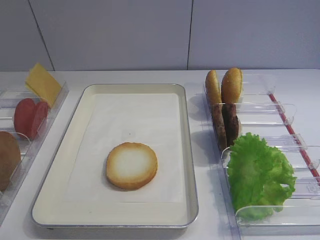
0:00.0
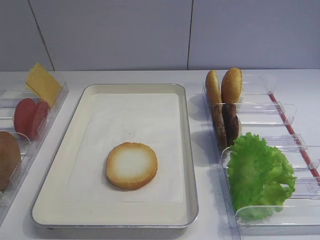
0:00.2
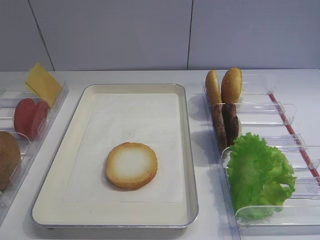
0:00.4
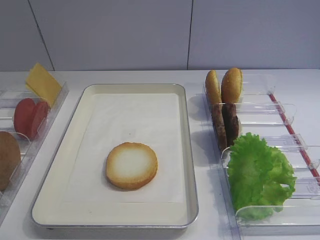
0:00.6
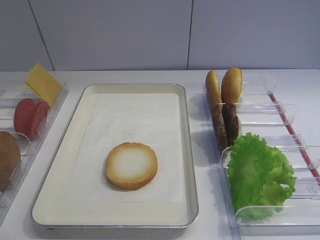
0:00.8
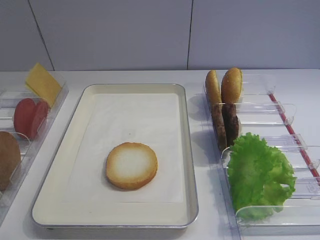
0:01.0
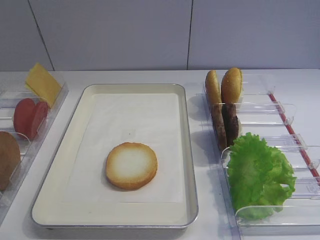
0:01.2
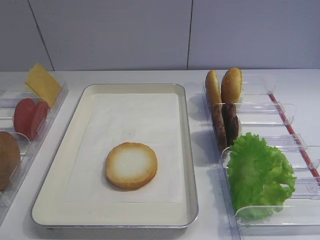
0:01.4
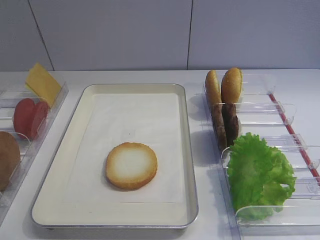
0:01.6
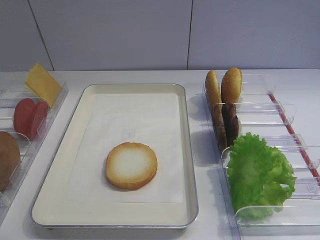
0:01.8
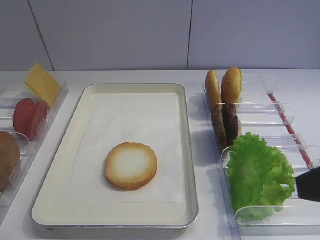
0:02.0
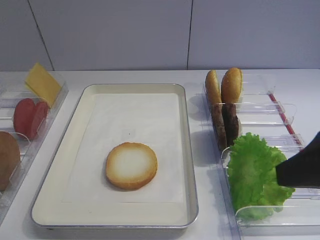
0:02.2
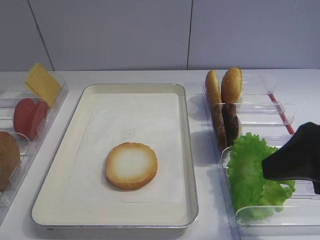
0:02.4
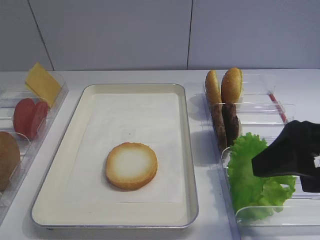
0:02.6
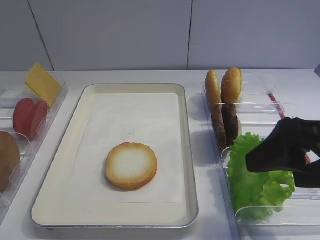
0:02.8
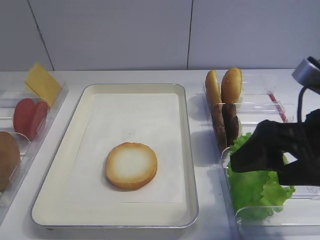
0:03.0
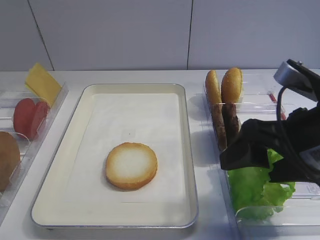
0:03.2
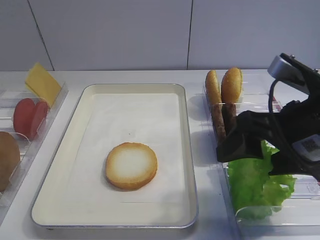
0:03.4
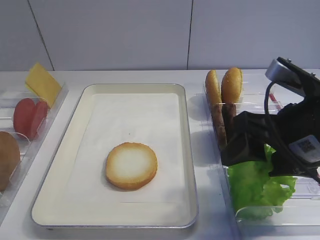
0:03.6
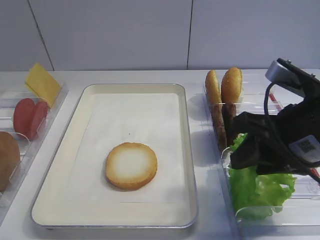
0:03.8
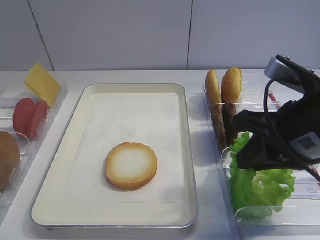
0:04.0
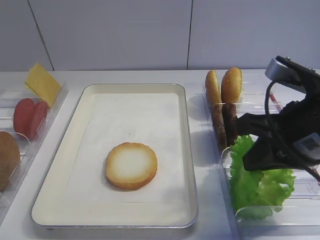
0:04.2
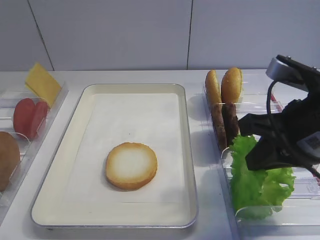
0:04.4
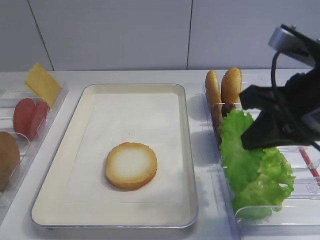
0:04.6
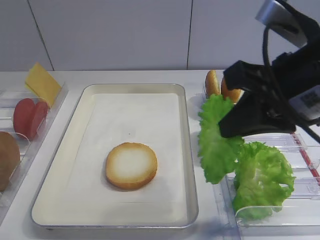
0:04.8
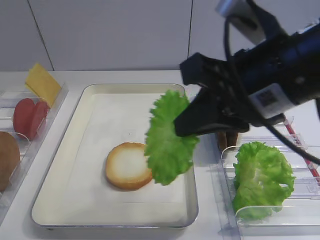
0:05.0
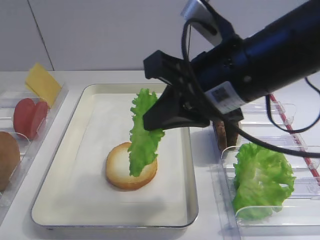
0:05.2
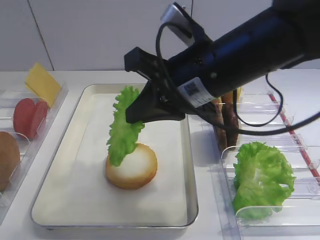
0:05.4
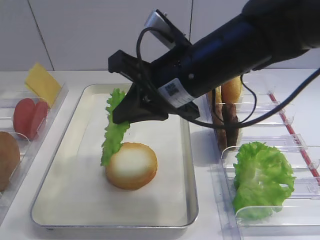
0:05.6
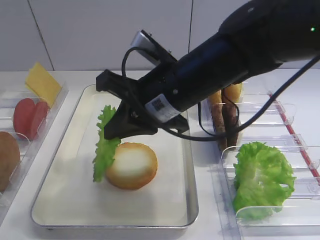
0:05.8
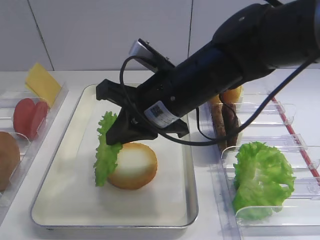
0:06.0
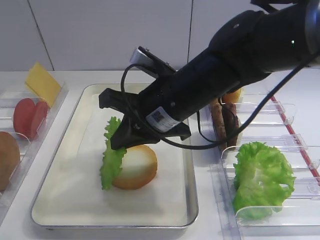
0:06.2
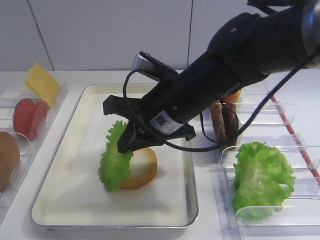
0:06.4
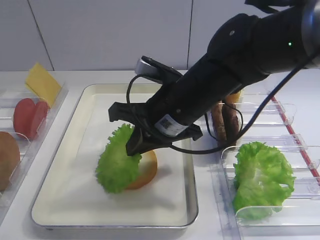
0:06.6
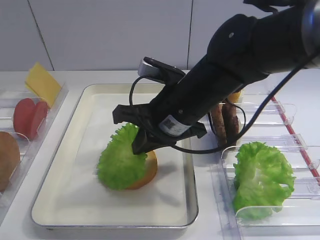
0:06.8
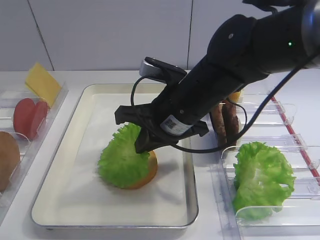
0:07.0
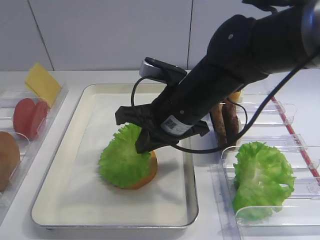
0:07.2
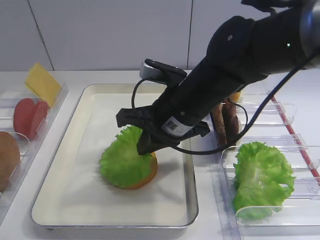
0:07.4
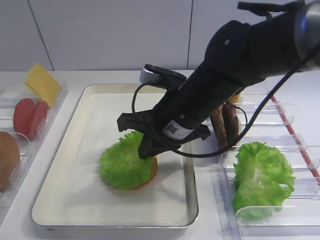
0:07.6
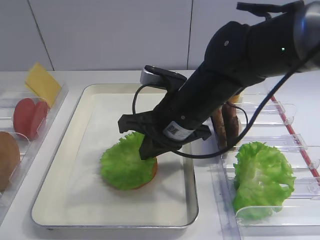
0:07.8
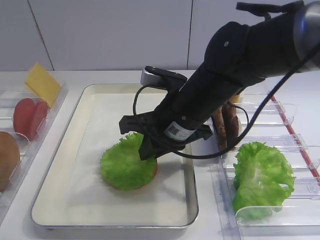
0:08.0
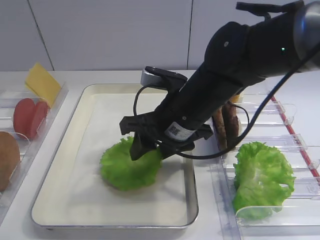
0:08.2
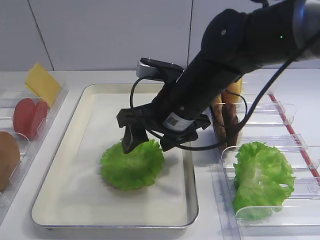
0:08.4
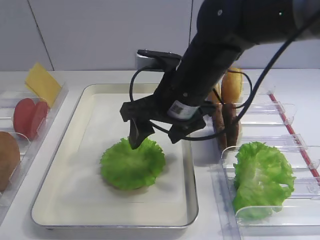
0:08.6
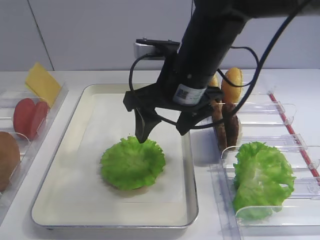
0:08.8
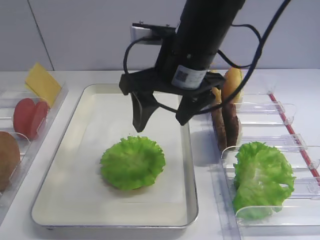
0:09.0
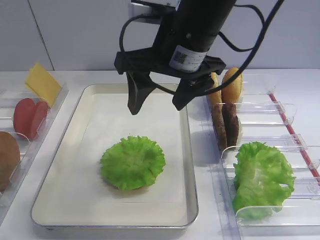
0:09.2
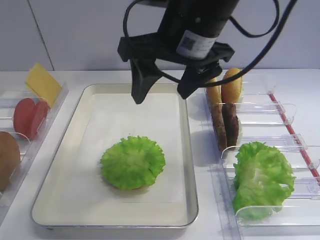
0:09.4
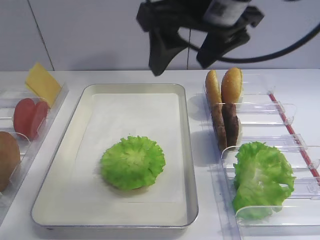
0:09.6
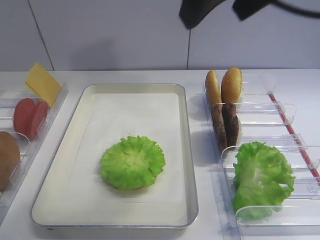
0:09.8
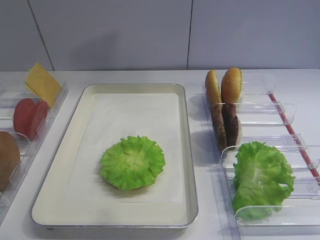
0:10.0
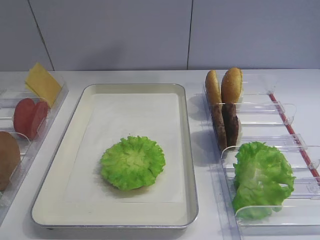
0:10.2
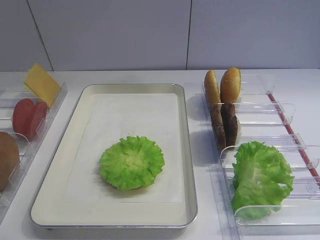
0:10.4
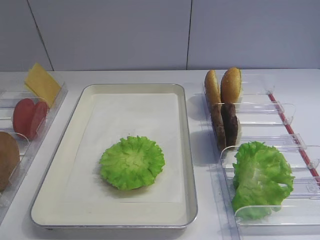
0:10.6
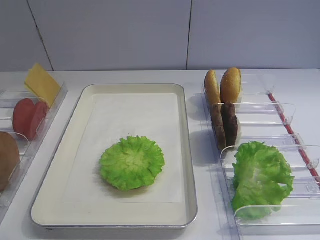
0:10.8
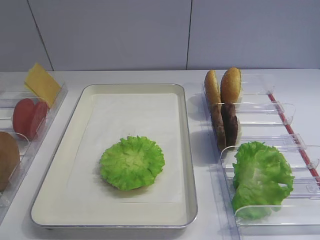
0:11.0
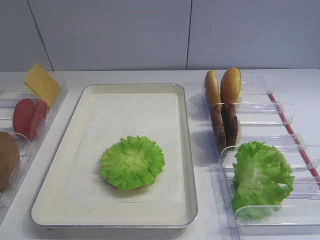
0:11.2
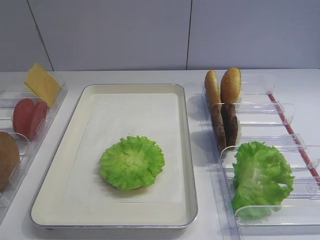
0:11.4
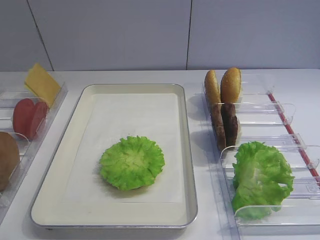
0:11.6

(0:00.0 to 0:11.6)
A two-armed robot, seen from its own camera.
Step, 0:00.0 - 0:04.6: Pick up the lettuce leaf with the right gripper.
Step, 0:04.8 - 0:09.0: Place the lettuce leaf on the bread slice with the right gripper.
0:01.4 - 0:02.8: The right gripper moves forward, about 15 cm, and opens up.
0:02.8 - 0:04.4: The right gripper closes.
0:04.4 - 0:05.8: The right gripper shifts some 15 cm to the left and forward.
0:07.2 - 0:08.8: The right gripper shifts by about 5 cm, and opens up.
0:08.8 - 0:10.2: The right gripper moves upward, backward and to the right, some 35 cm.
0:10.2 - 0:11.6: The right gripper moves downward and backward, about 25 cm.

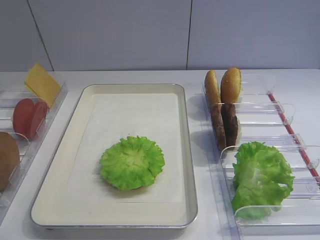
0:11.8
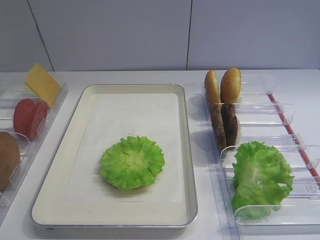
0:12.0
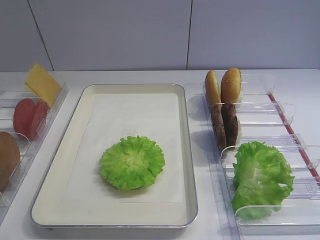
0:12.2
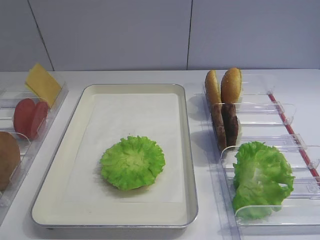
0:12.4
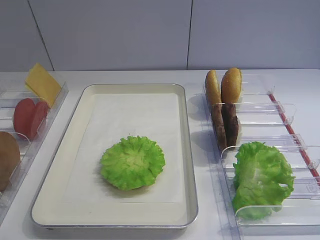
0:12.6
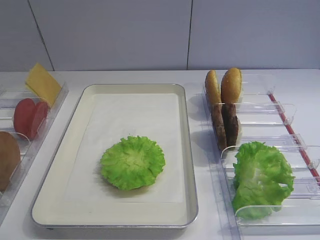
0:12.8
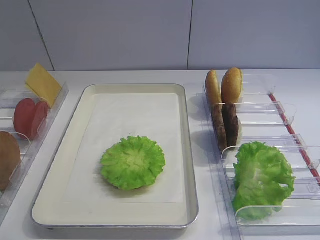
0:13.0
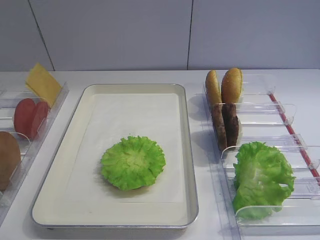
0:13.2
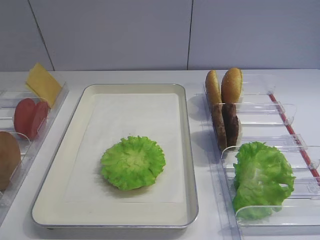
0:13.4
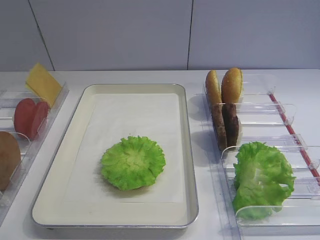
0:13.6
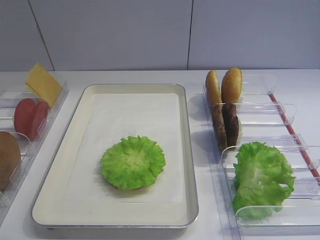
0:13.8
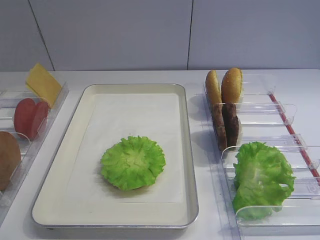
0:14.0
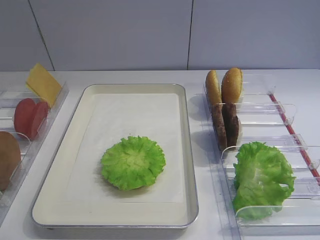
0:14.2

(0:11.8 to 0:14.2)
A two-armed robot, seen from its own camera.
0:11.8 - 0:14.2: The two grippers keep their place.

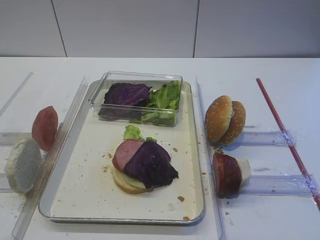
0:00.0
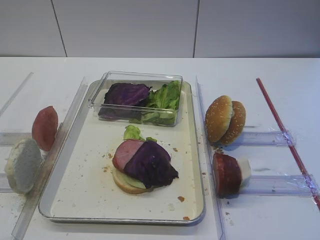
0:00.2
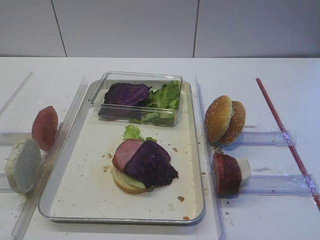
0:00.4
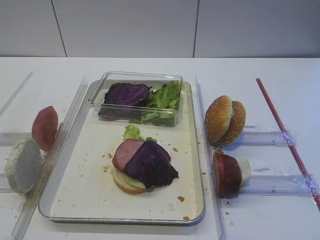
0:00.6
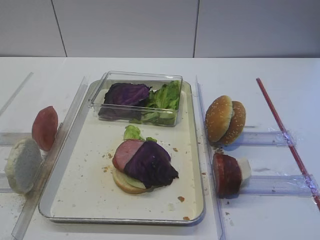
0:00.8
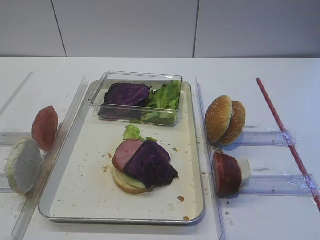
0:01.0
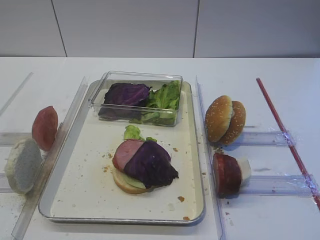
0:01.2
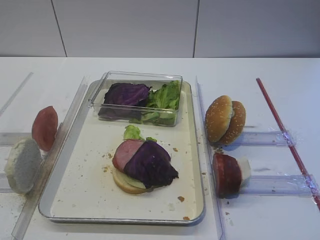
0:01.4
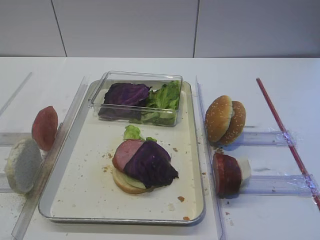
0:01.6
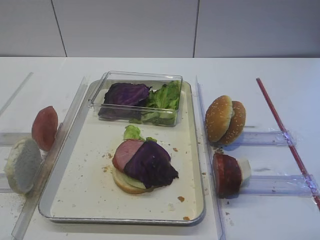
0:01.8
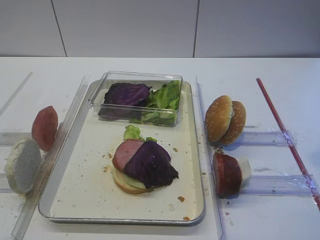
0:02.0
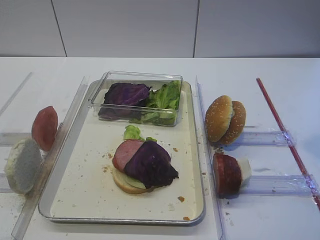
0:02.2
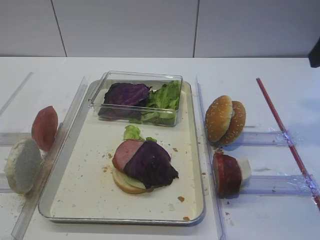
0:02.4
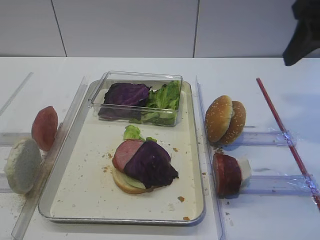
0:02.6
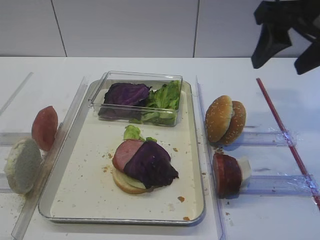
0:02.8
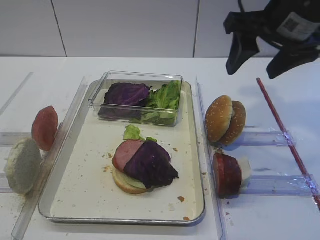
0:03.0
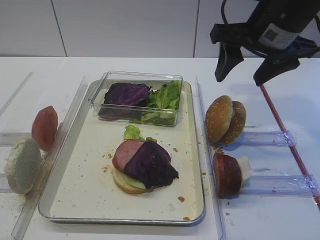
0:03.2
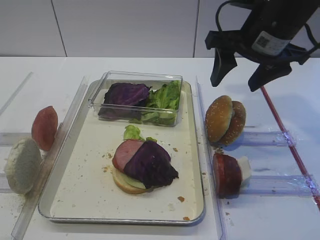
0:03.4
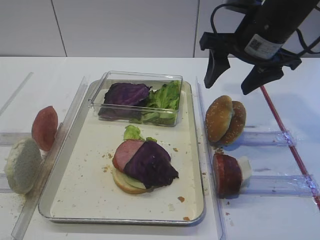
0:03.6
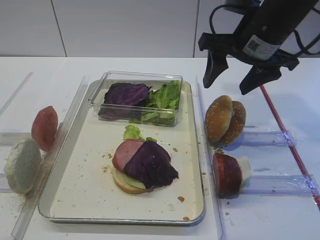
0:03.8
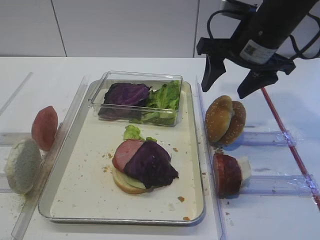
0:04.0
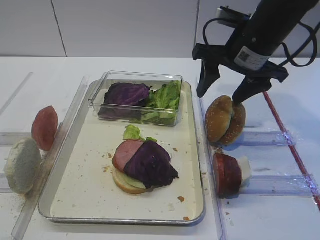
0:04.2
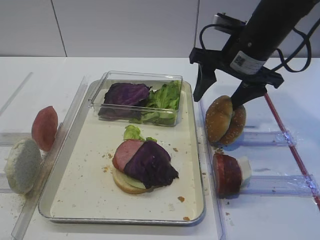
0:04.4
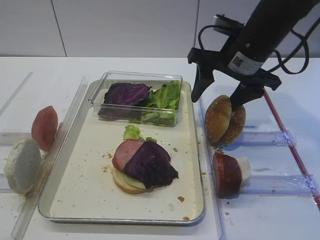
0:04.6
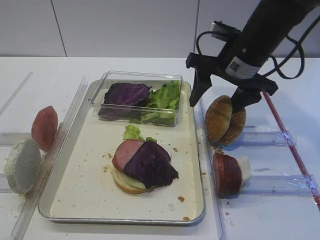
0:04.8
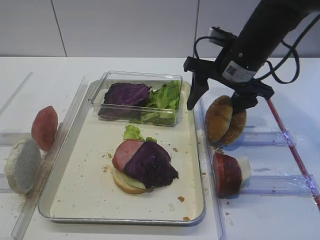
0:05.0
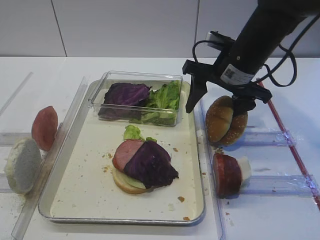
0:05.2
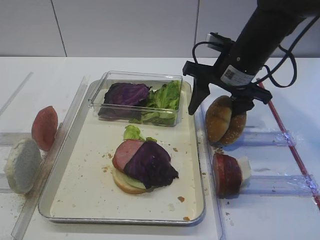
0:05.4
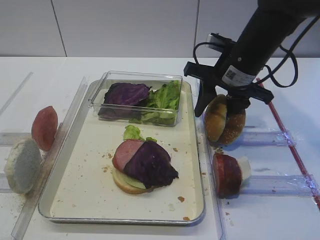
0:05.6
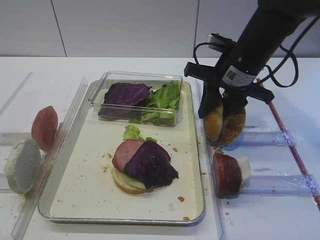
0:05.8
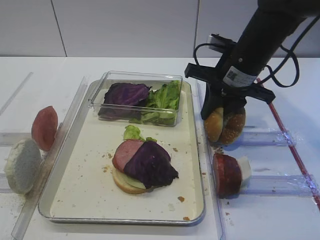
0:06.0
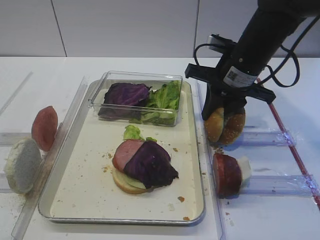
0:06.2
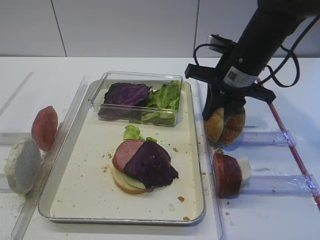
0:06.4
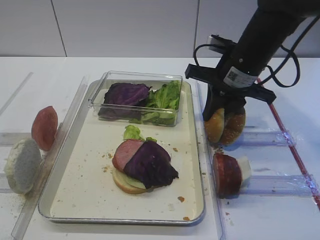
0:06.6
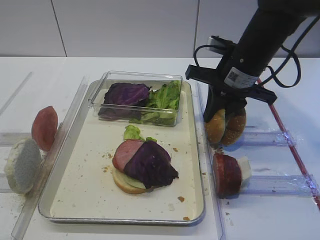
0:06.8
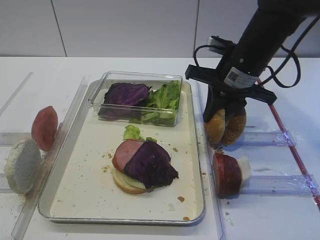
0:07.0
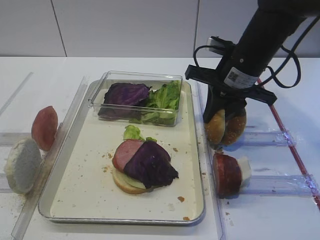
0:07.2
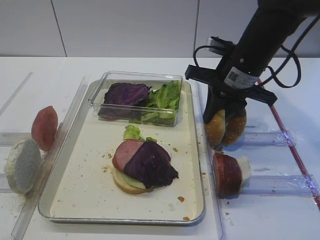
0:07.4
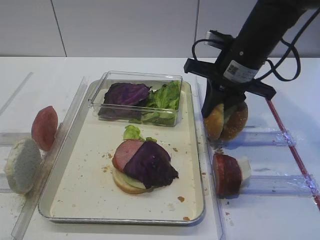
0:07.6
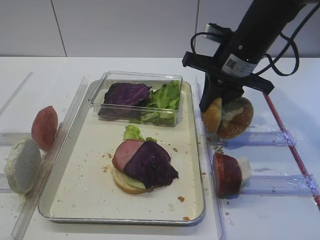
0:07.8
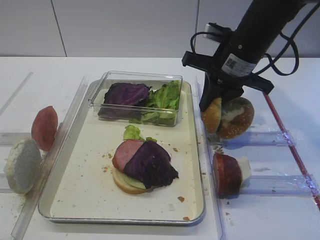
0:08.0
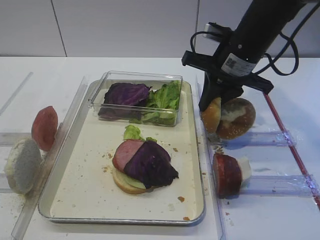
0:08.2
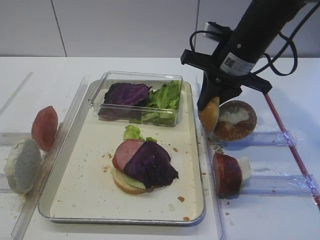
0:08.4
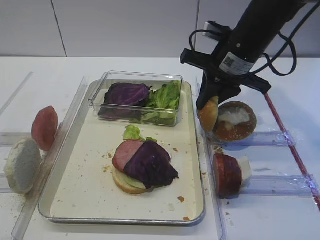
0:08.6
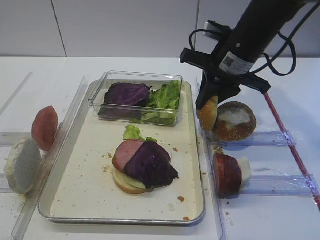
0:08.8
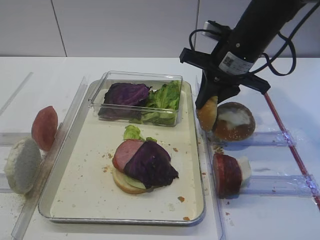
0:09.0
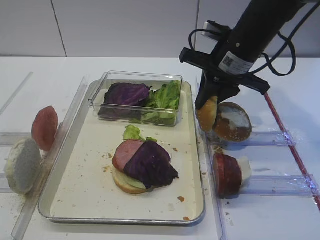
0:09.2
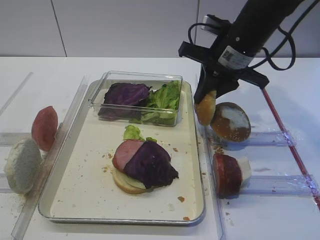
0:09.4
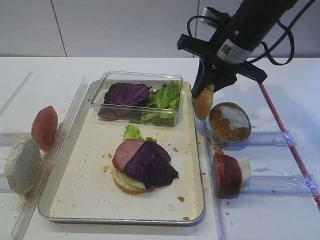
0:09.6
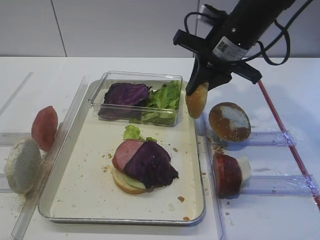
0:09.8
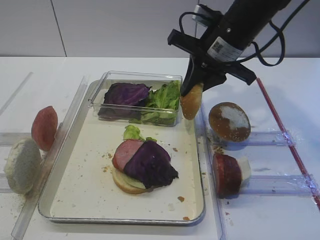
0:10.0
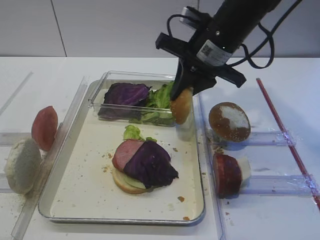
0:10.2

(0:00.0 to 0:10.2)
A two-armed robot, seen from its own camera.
Step, 0:00.0 - 0:09.6: Pick up the hamburger lid with the right gripper.
0:01.4 - 0:03.0: The right gripper is displaced forward by about 25 cm.
0:03.0 - 0:04.4: The right gripper heads downward, covering approximately 5 cm.
0:04.4 - 0:05.8: The right gripper closes its fingers.
0:05.8 - 0:07.2: The two grippers keep their place.
0:07.2 - 0:10.2: The grippers stay close to where they were, moving slightly.
